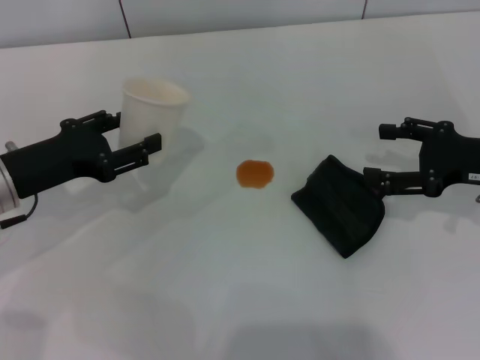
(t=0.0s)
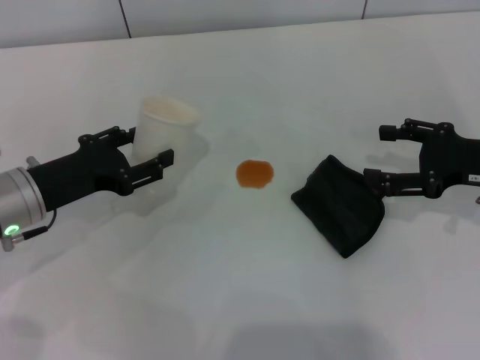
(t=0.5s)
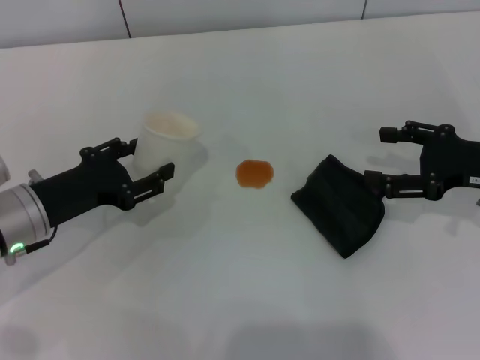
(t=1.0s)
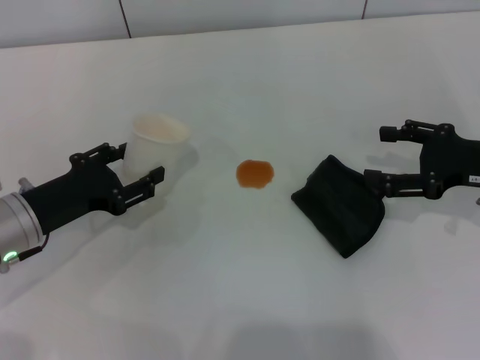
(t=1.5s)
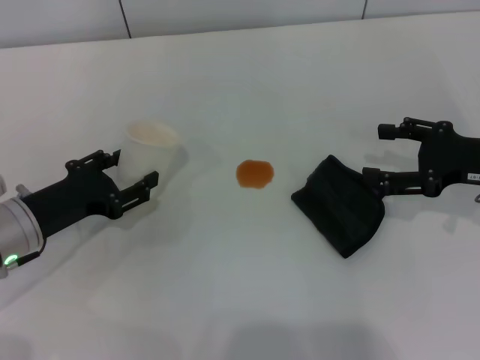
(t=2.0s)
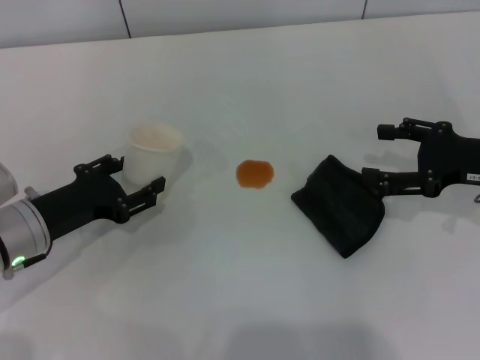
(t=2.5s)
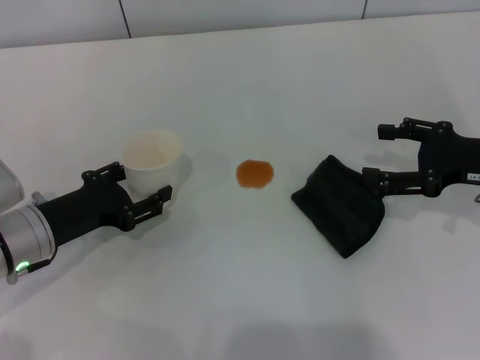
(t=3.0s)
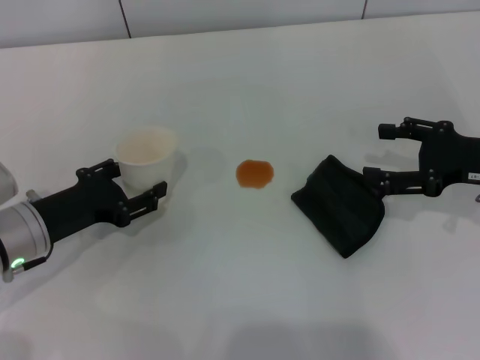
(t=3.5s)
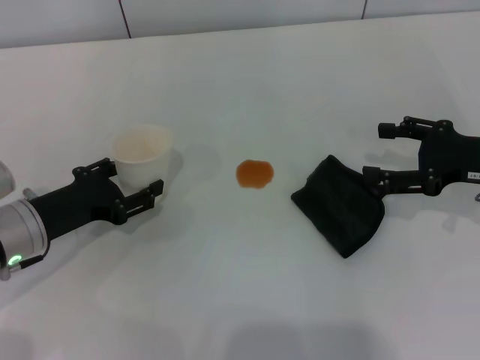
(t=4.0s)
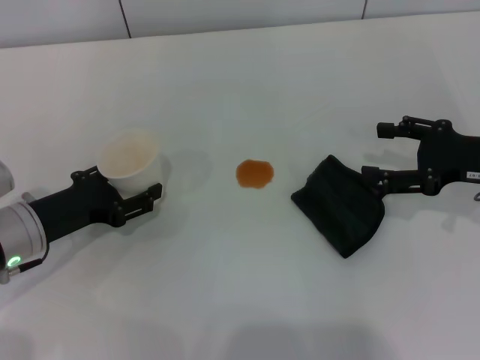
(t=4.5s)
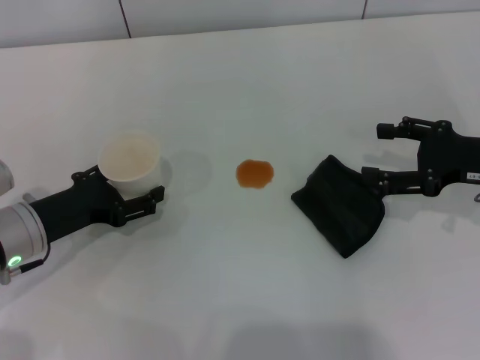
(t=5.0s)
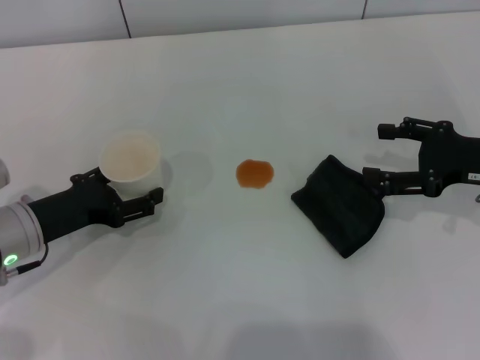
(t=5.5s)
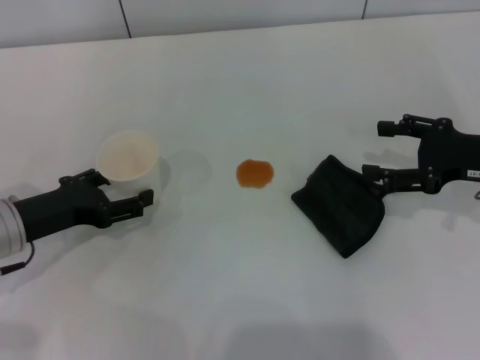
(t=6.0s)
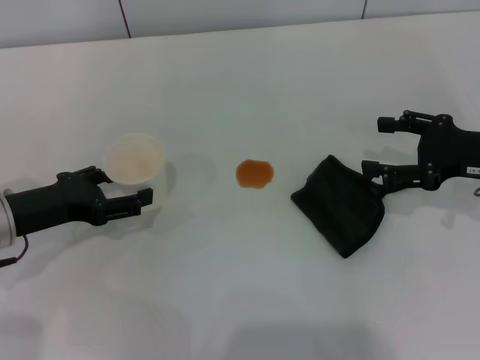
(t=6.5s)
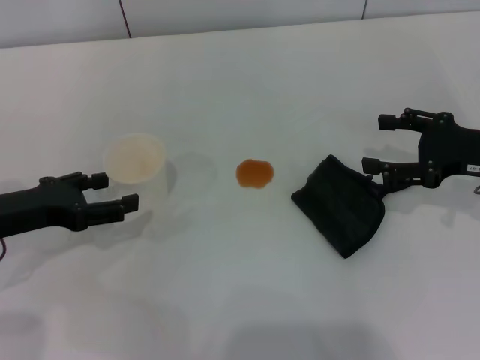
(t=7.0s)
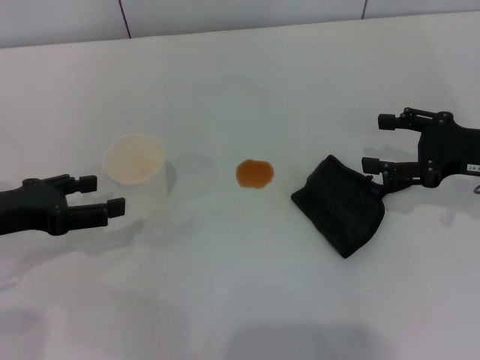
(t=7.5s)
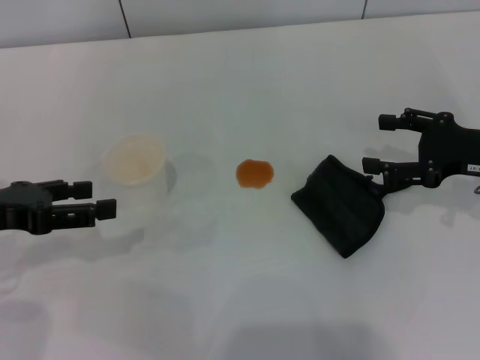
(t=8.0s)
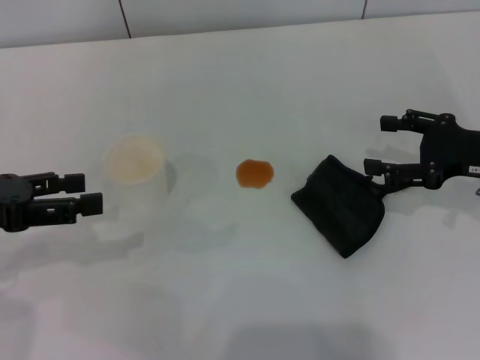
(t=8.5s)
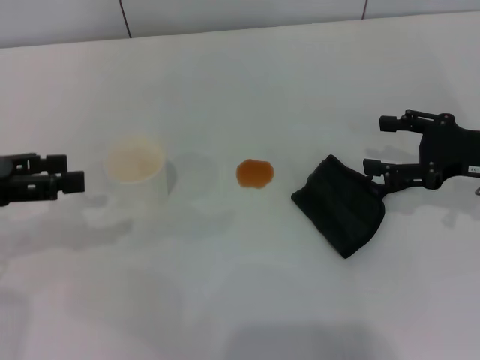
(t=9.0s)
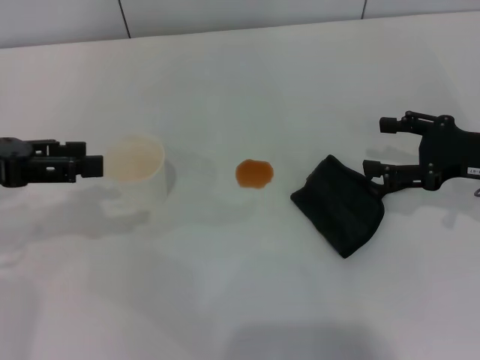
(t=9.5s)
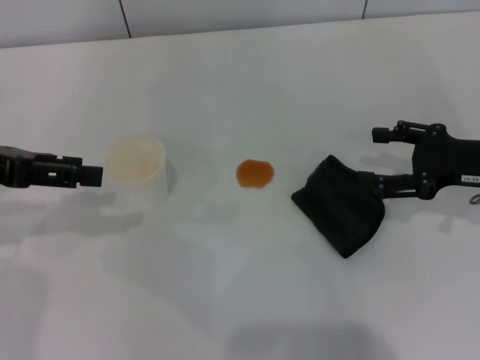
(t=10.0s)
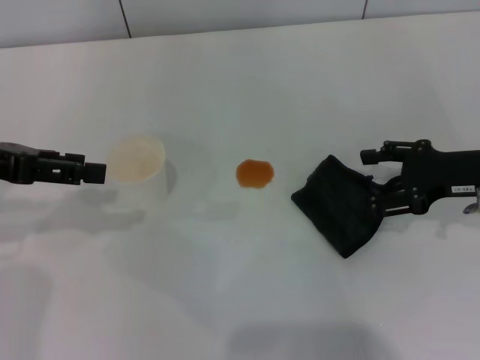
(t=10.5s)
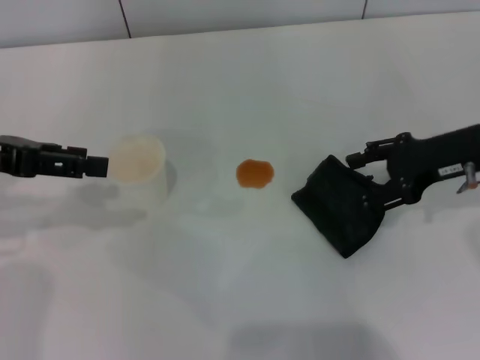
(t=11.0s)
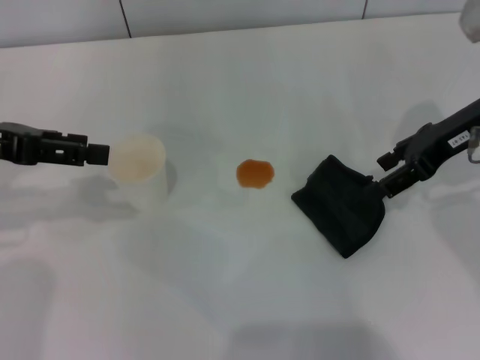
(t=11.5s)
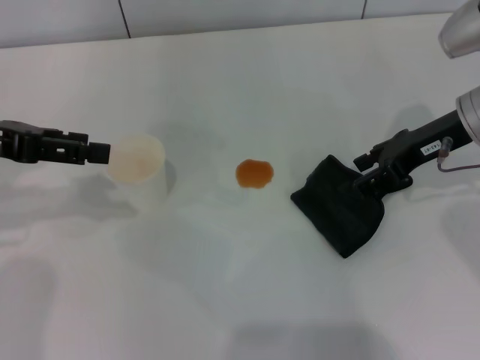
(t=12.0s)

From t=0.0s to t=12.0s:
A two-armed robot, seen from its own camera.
Step, from t=0.0s to t=7.0s: Stand the paper cup upright with the left gripper.
From t=0.0s to t=2.0s: The left gripper goes roughly 5 cm downward.
From t=2.0s to t=4.0s: Both grippers stay put.
From t=4.0s to t=6.0s: The left gripper opens.
From t=6.0s to t=8.0s: The left gripper shifts approximately 10 cm upward.
From t=8.0s to t=10.0s: The left gripper moves upward, about 5 cm.
From t=10.0s to t=12.0s: The right gripper is displaced forward by approximately 5 cm.

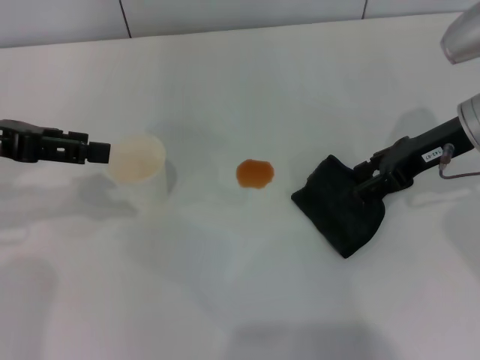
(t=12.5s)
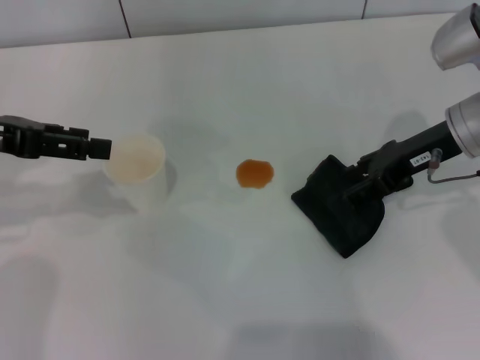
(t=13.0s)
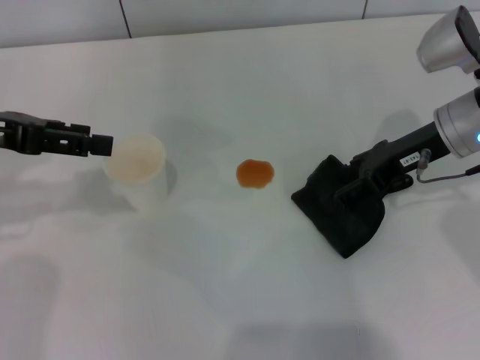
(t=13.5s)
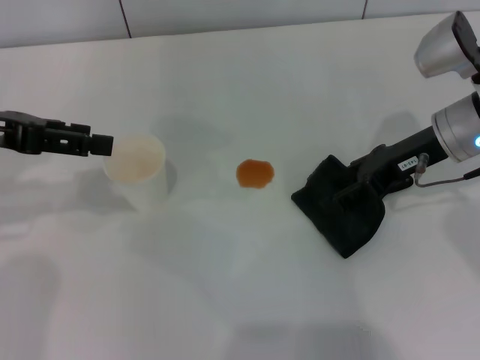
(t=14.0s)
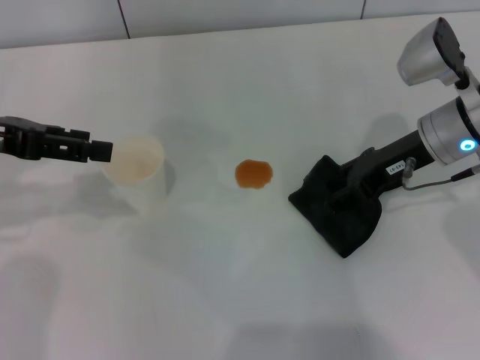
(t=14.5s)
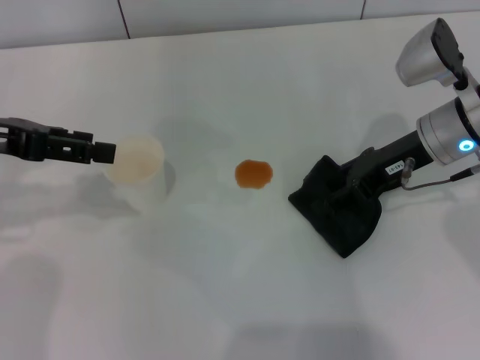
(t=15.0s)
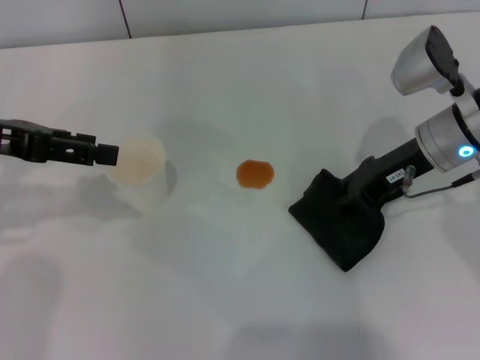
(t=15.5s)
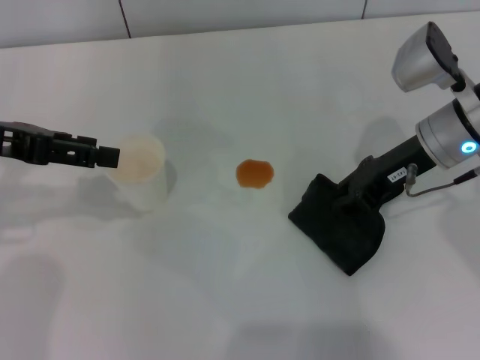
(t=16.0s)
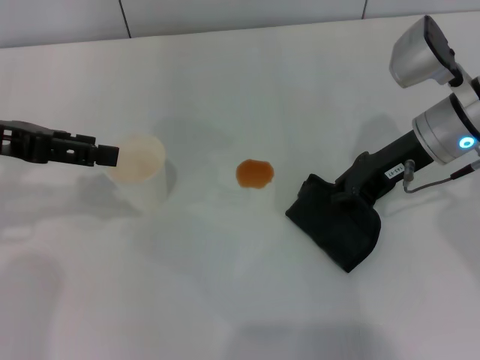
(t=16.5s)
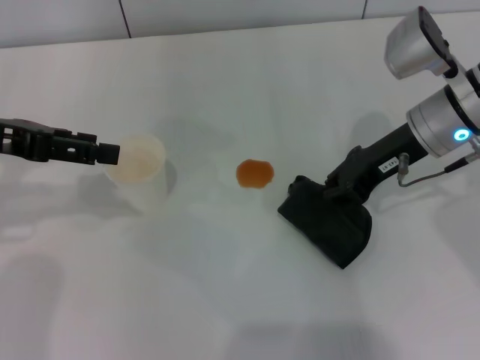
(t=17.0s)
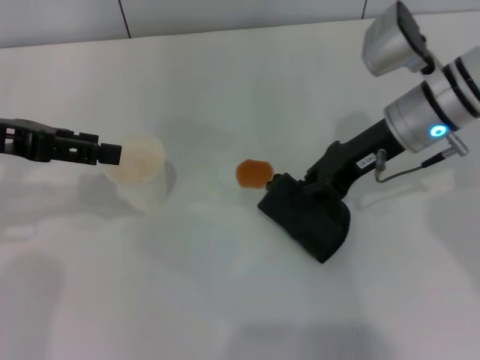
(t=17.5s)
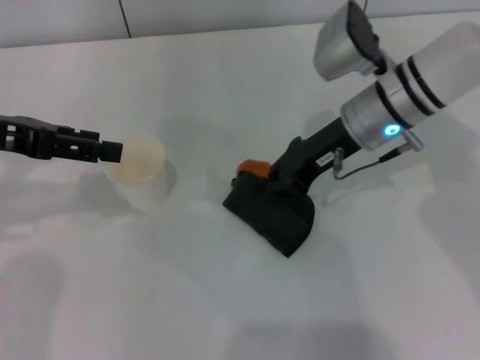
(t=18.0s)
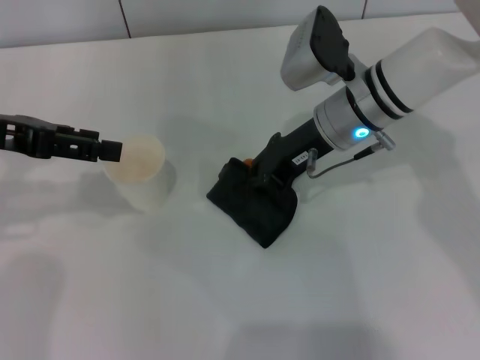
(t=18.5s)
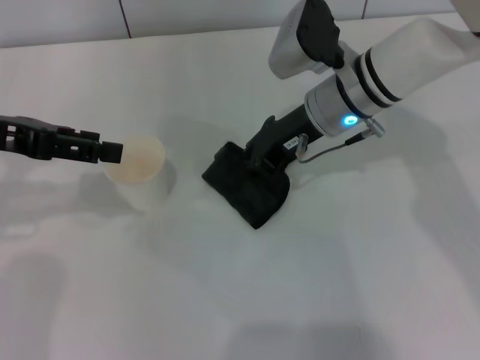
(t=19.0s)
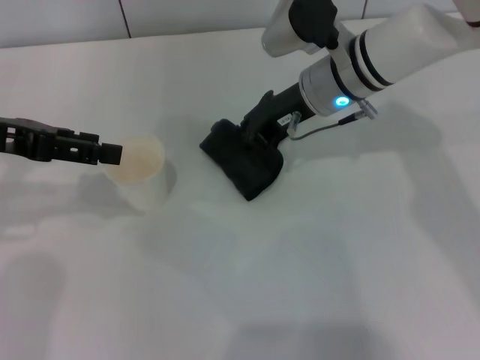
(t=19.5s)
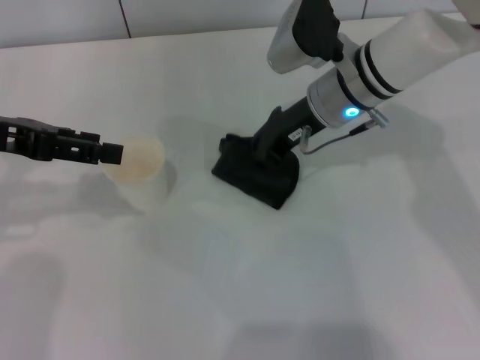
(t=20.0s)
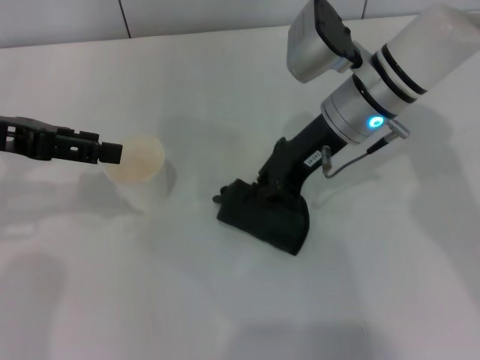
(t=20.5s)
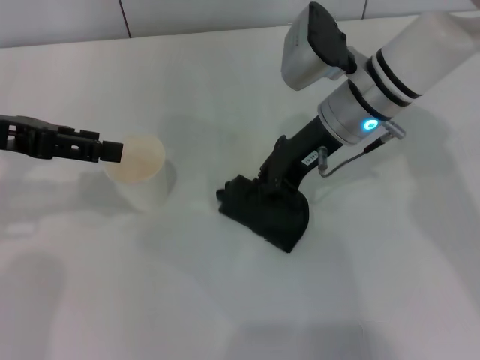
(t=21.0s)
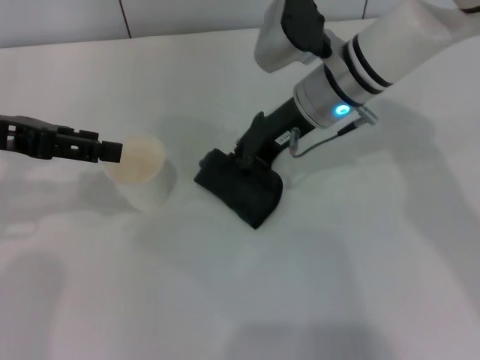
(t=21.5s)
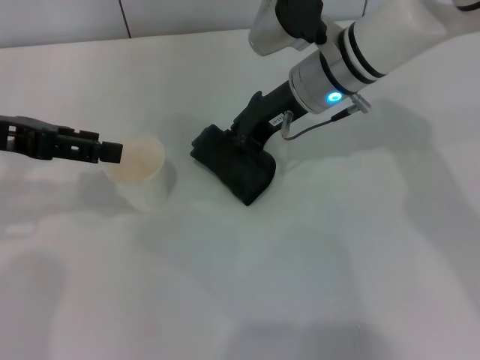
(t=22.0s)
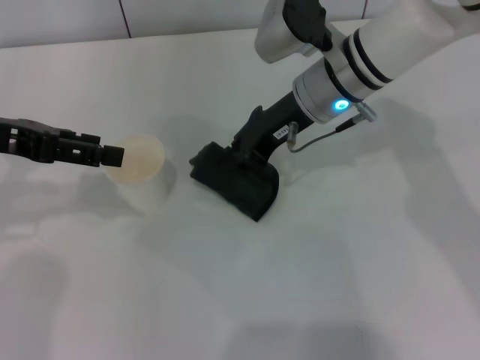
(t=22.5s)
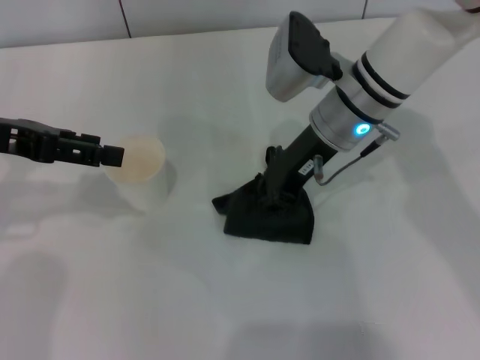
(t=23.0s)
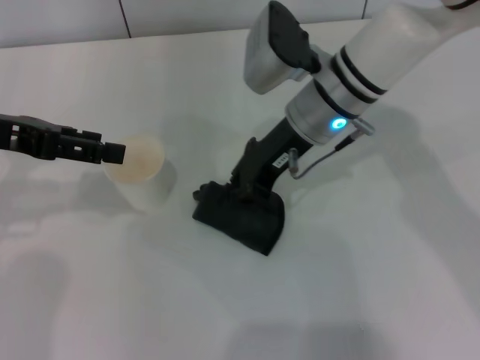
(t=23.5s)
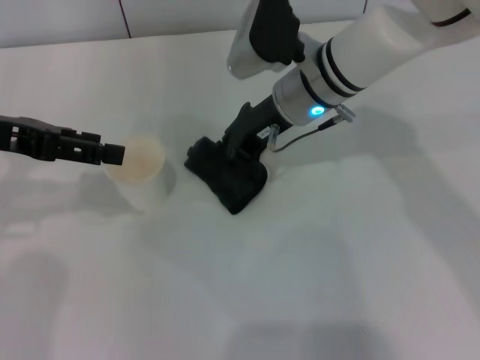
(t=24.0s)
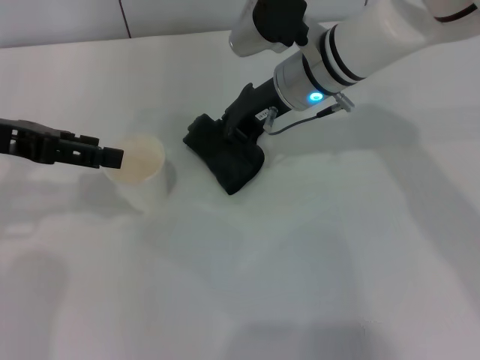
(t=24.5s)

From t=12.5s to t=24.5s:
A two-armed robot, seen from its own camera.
Step, from t=12.5s to t=14.5s: Grasp the rag with the right gripper.
From t=12.5s to t=14.5s: The grippers stay close to where they were, moving slightly.
From t=14.5s to t=16.5s: The right gripper closes.
From t=16.5s to t=18.5s: The right gripper goes some 10 cm to the left.
From t=18.5s to t=24.5s: There are only small adjustments of the grippers.

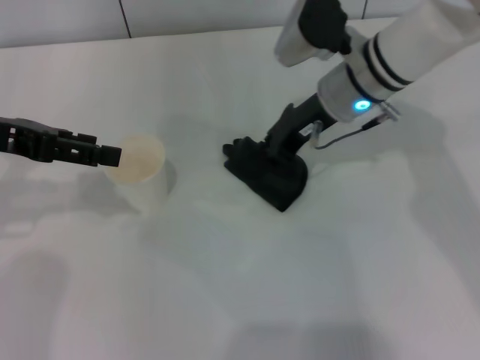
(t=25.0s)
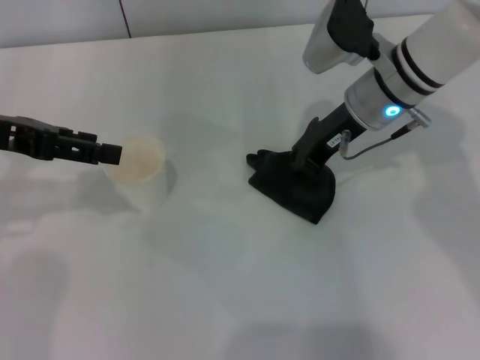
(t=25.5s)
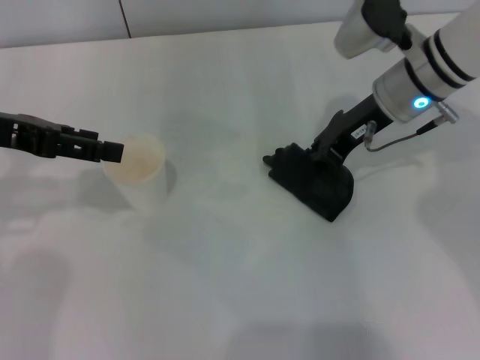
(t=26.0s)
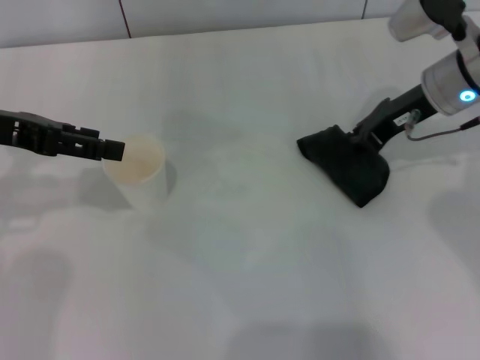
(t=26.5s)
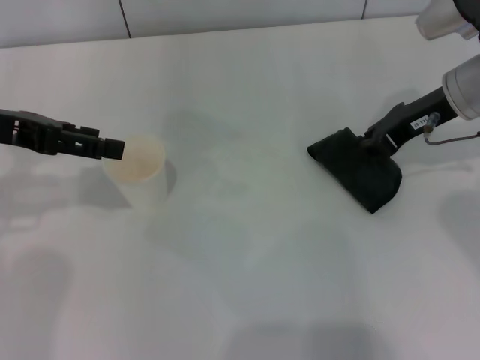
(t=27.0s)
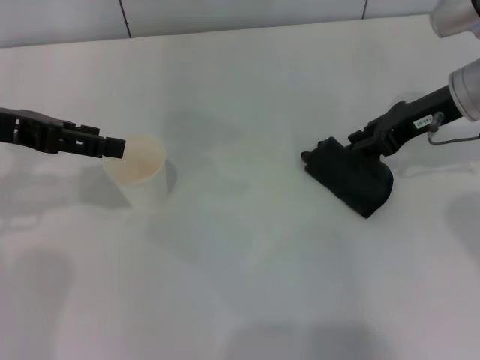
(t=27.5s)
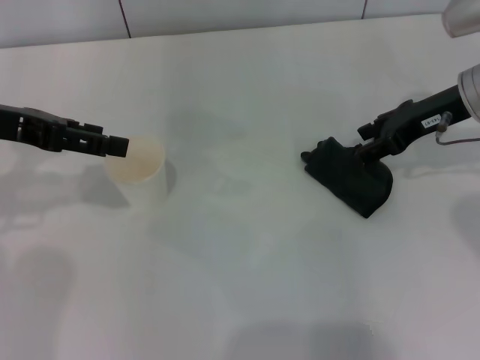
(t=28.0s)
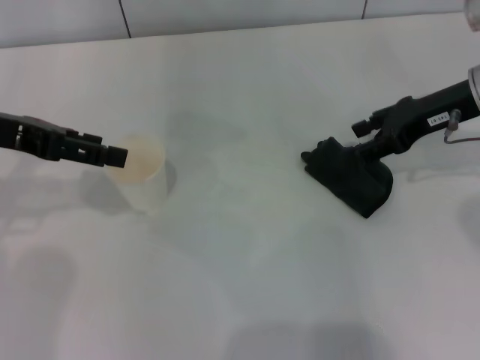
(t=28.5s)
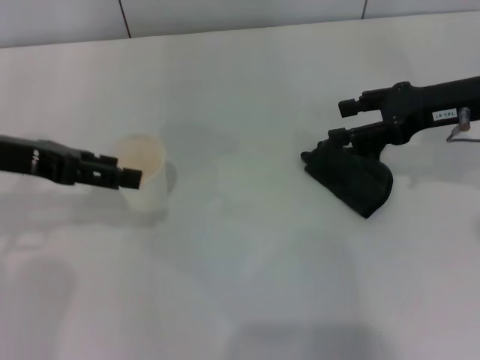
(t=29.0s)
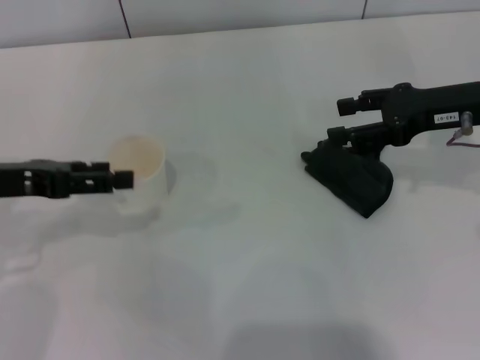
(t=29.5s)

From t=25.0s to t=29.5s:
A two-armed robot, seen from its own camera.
Step, from t=25.0s to t=28.0s: Place the rag on the table with the right gripper.
From t=25.0s to t=27.0s: The right gripper goes approximately 15 cm to the right.
From t=27.0s to t=29.5s: The left gripper heads downward, covering about 5 cm; the right gripper moves some 5 cm, and opens.